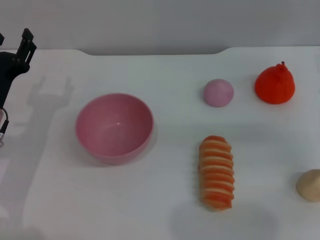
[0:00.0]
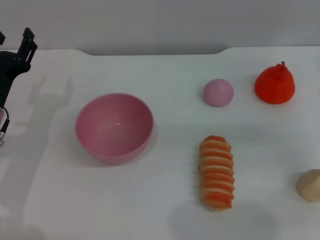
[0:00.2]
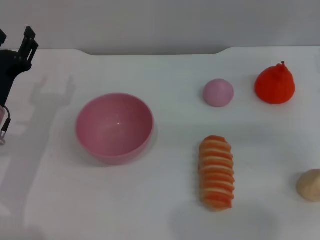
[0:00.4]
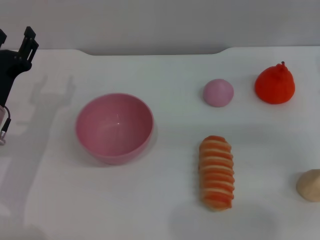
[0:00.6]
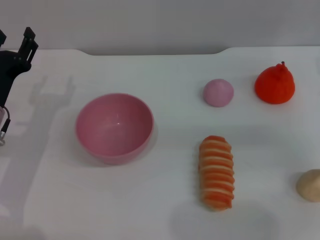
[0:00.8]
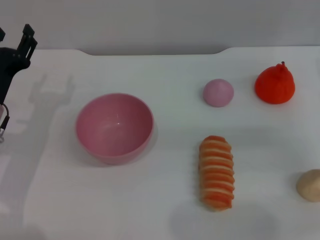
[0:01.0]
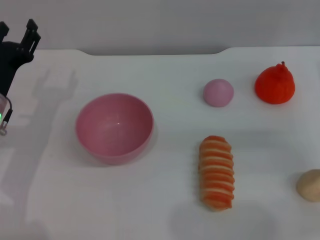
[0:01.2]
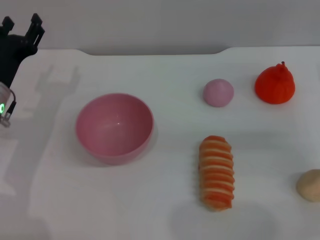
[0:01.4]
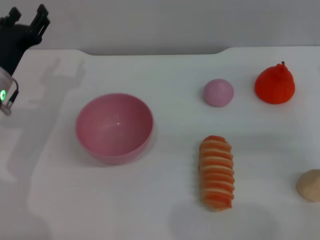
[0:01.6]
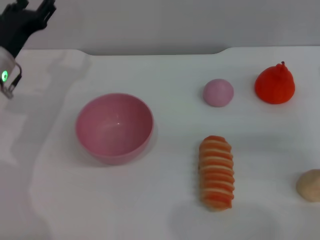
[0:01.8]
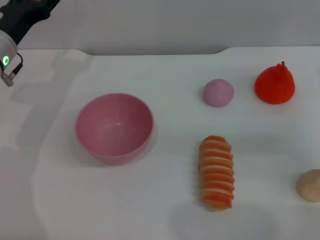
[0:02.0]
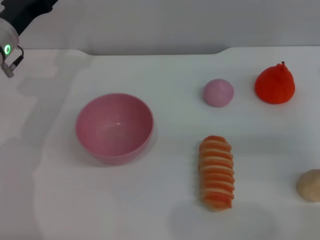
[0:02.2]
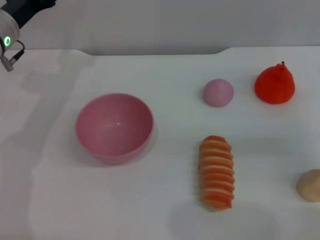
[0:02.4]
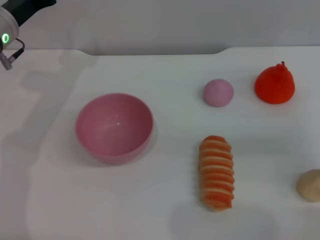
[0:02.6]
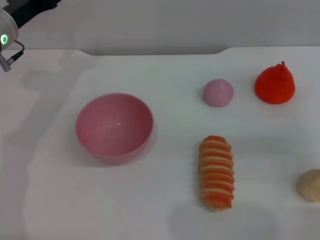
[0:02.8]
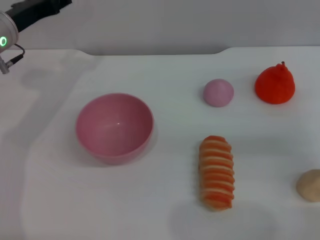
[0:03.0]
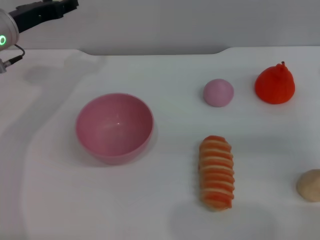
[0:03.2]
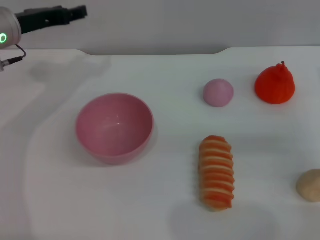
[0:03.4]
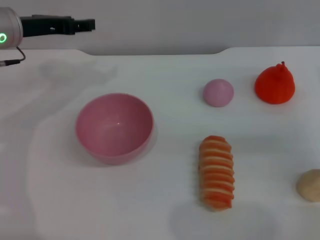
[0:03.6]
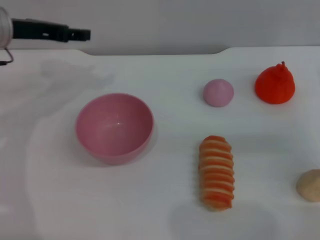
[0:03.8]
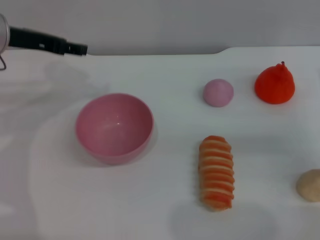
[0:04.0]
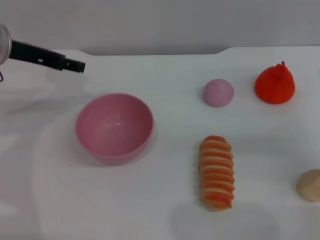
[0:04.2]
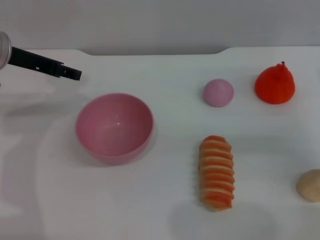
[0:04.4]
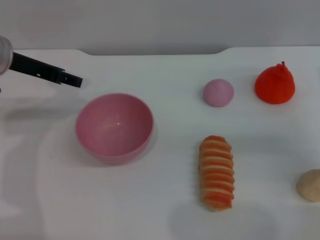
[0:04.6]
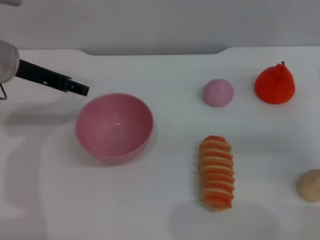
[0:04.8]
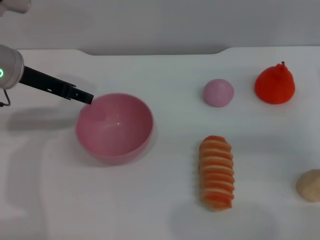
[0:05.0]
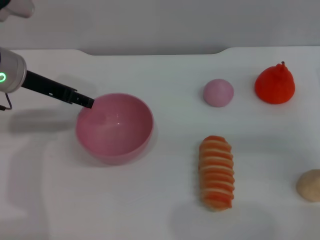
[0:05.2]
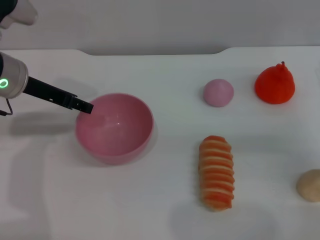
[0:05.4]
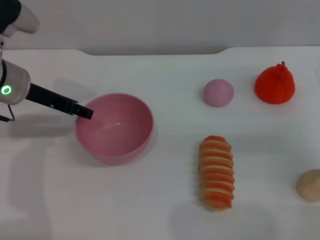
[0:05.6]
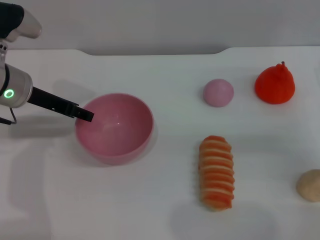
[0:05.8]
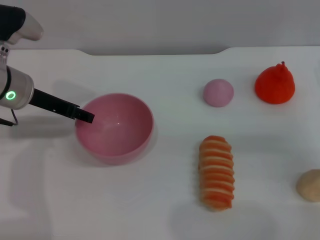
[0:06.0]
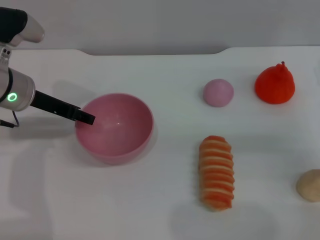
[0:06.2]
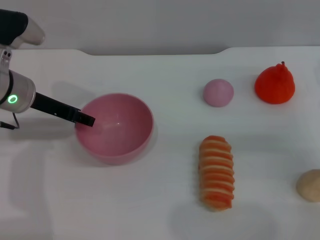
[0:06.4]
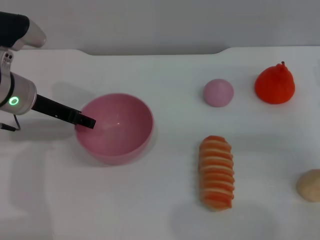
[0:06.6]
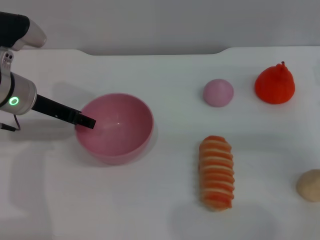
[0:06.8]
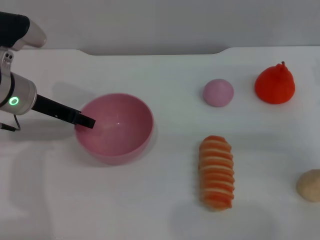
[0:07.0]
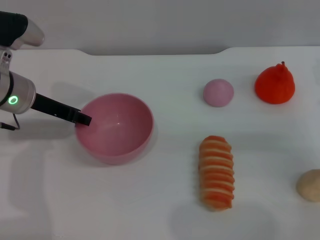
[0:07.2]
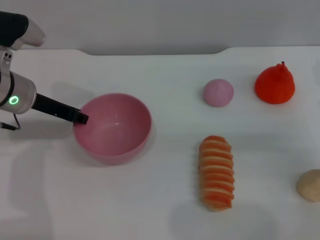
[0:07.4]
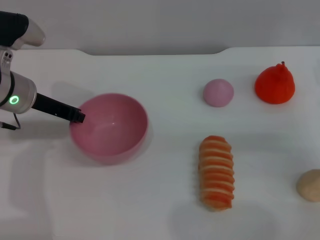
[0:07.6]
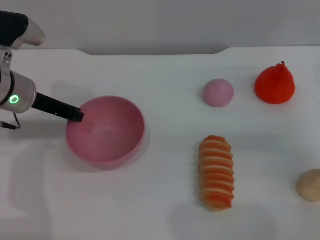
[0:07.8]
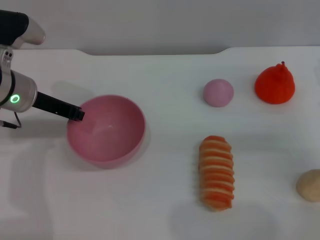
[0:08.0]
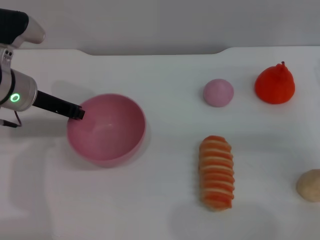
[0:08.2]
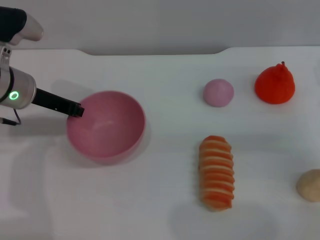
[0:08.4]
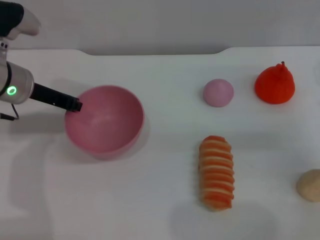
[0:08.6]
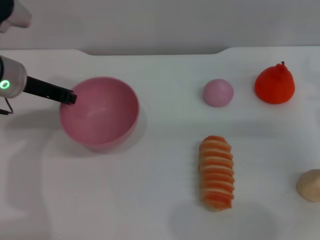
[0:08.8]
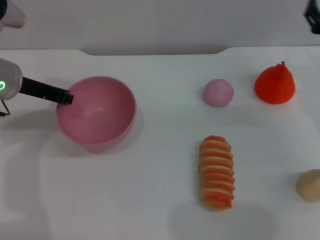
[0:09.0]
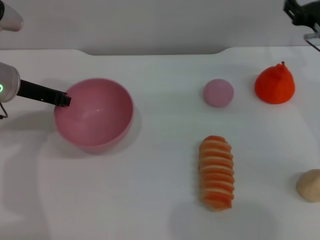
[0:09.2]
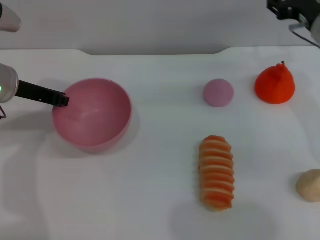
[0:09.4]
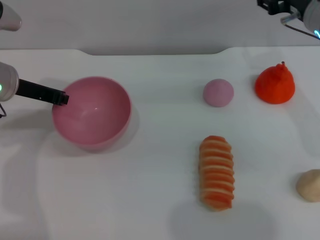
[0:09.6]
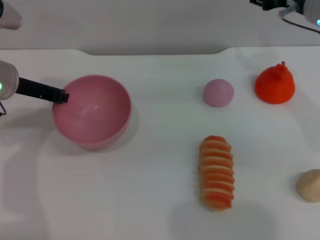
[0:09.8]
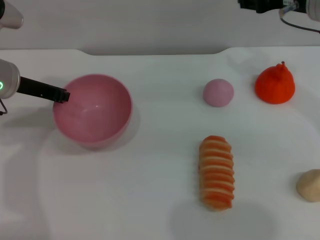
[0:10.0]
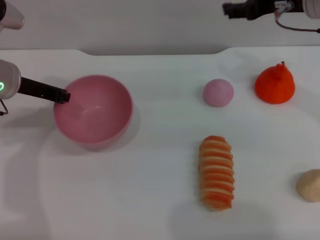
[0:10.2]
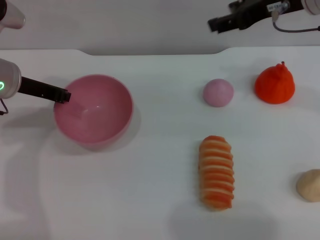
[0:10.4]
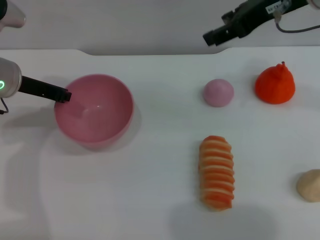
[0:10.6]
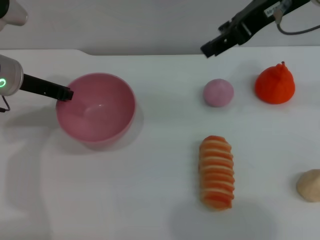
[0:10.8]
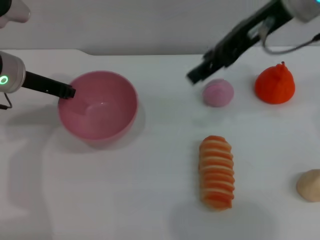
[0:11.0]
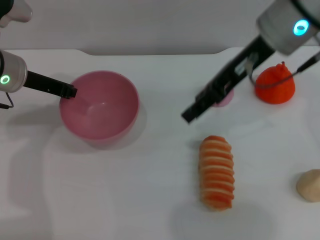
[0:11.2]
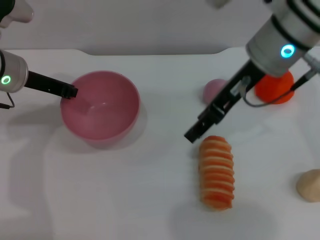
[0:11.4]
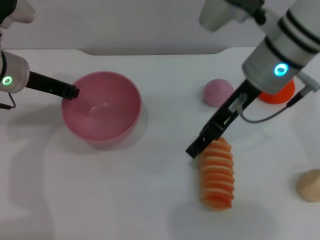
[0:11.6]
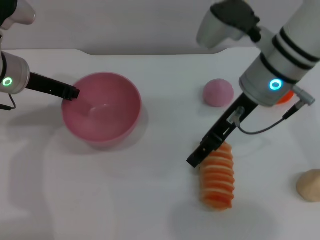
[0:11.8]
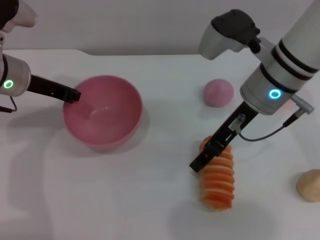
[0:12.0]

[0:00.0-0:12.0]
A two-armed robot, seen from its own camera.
Task of the whole recording: put the bread into the pink bowl and pour it out repeatedly.
Step, 0:00.0 to 0:08.8: Pick up the bowl with the left gripper.
0:00.0 to 0:01.6: The left gripper shifts about 5 cm forward.
0:01.6 to 0:03.0: The left gripper shifts roughly 10 cm upward and forward.
0:04.4 to 0:06.0: The left gripper ends up about 5 cm from where it was.
0:06.0 to 0:07.6: The left gripper closes up.
0:07.6 to 0:09.0: The left gripper closes. Meanwhile the right gripper shifts by roughly 5 cm.
0:09.0 to 0:10.4: The right gripper travels upward and to the left by some 20 cm.
0:10.4 to 0:12.0: The right gripper moves downward and to the left, about 10 cm.

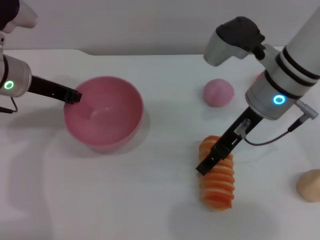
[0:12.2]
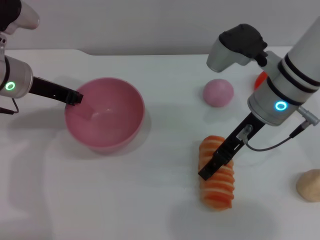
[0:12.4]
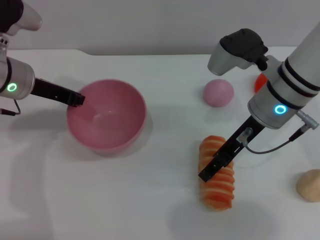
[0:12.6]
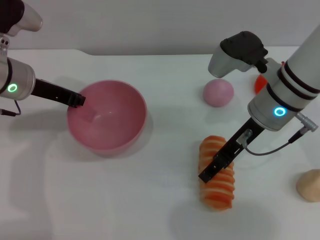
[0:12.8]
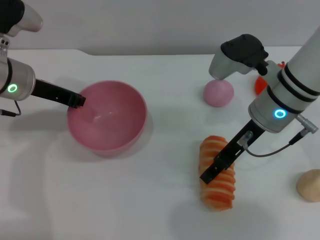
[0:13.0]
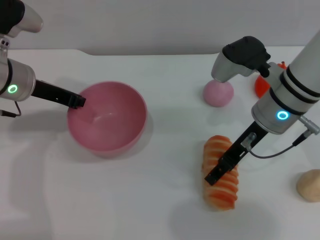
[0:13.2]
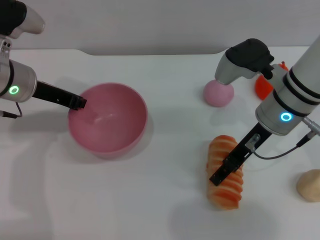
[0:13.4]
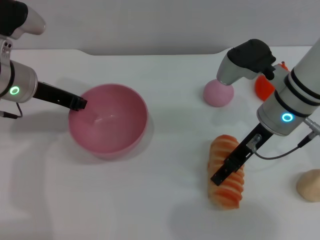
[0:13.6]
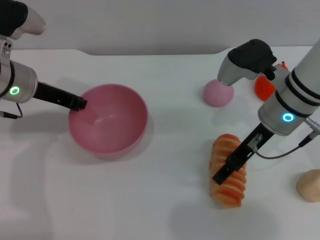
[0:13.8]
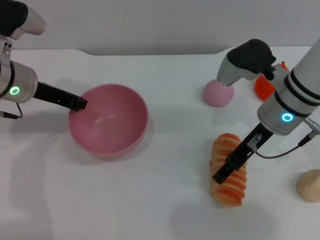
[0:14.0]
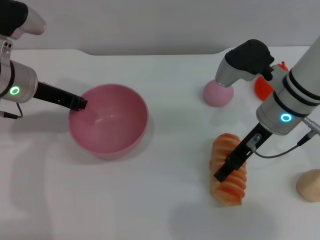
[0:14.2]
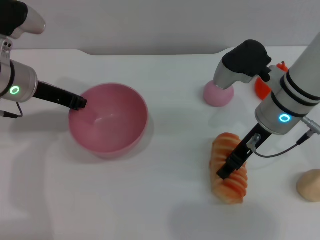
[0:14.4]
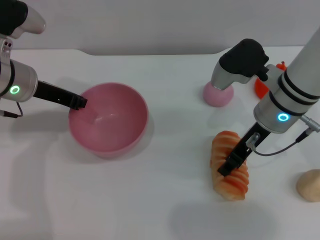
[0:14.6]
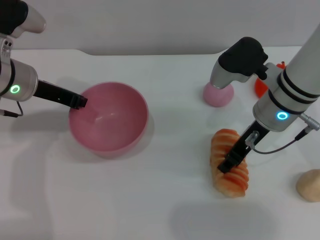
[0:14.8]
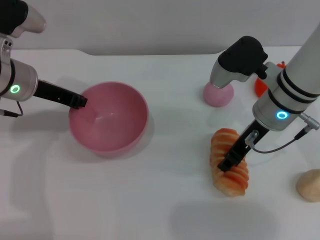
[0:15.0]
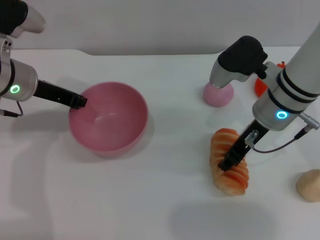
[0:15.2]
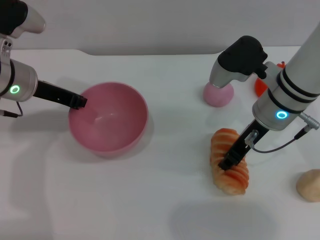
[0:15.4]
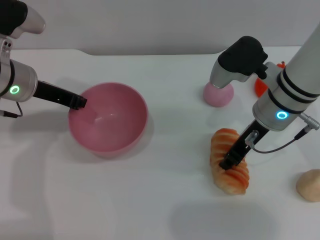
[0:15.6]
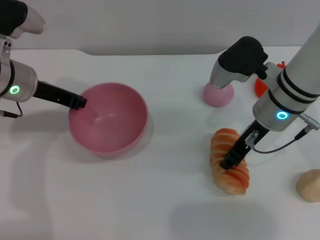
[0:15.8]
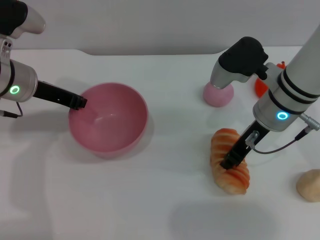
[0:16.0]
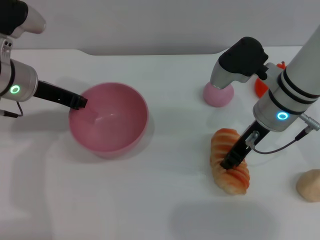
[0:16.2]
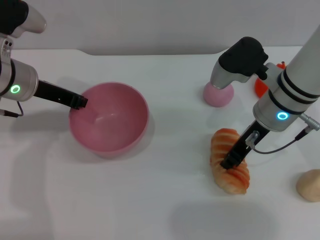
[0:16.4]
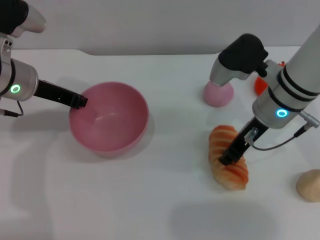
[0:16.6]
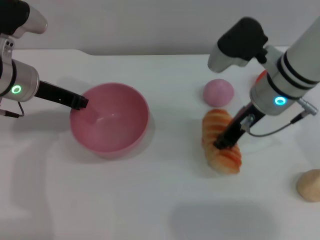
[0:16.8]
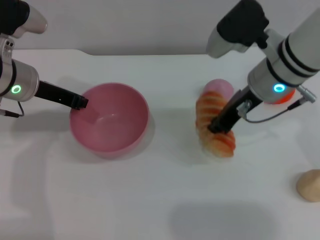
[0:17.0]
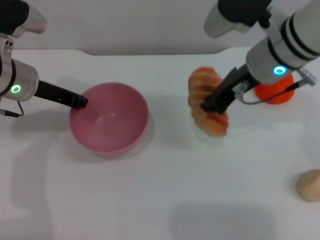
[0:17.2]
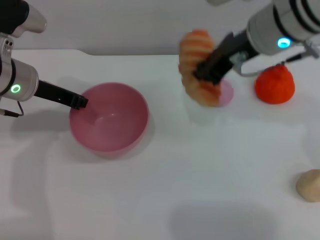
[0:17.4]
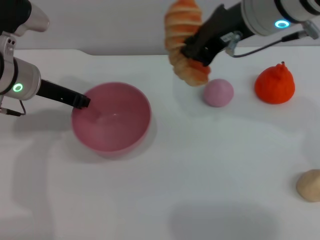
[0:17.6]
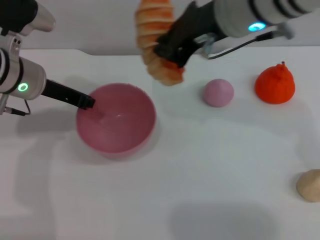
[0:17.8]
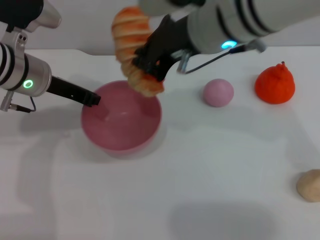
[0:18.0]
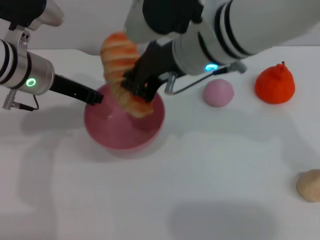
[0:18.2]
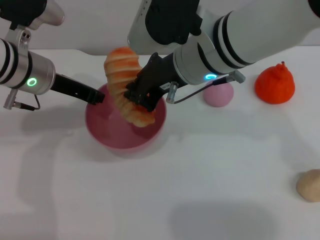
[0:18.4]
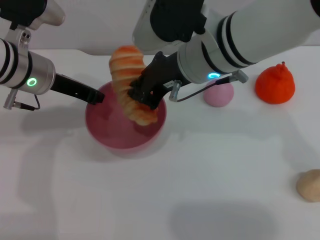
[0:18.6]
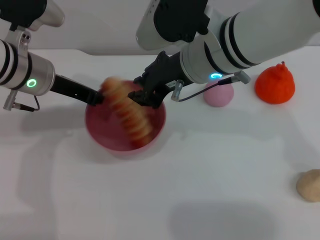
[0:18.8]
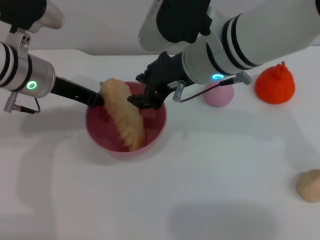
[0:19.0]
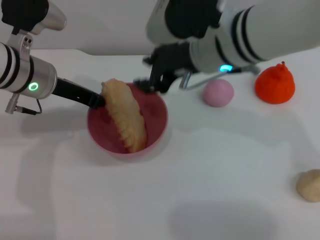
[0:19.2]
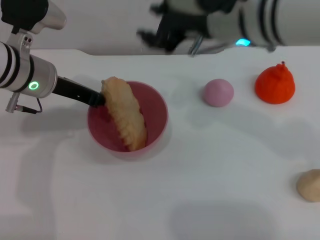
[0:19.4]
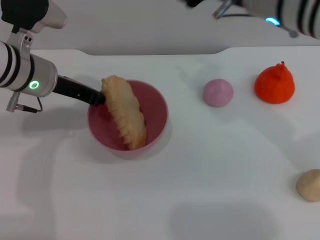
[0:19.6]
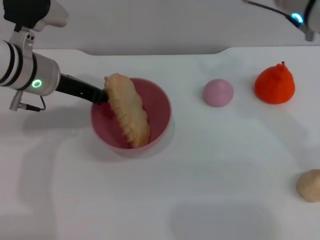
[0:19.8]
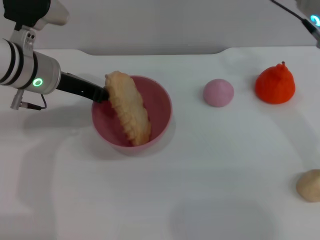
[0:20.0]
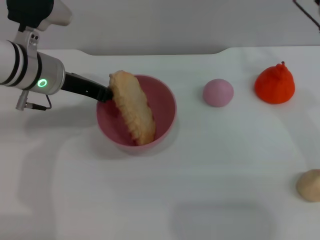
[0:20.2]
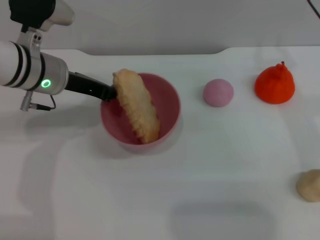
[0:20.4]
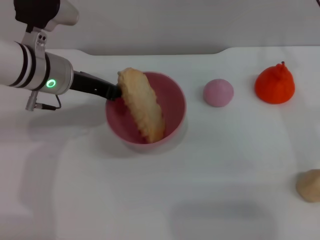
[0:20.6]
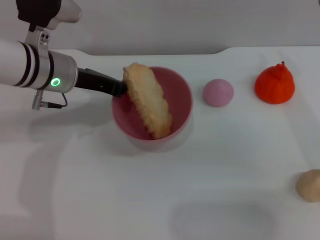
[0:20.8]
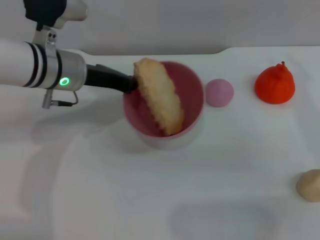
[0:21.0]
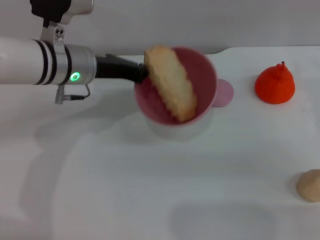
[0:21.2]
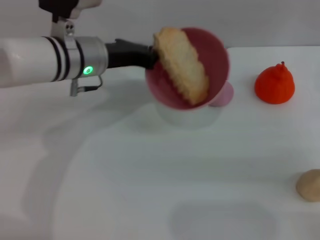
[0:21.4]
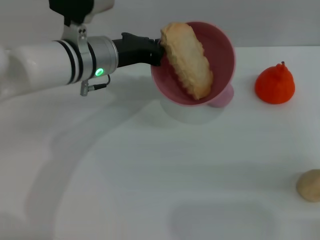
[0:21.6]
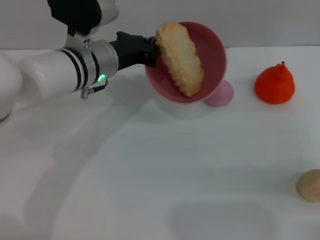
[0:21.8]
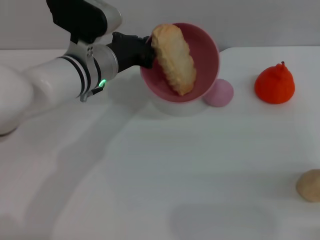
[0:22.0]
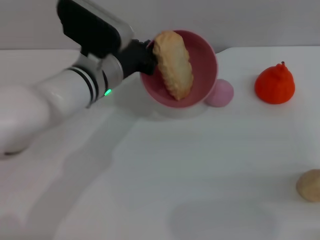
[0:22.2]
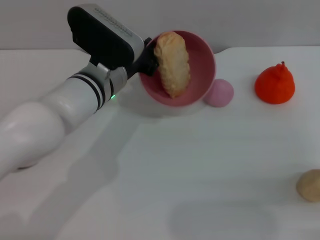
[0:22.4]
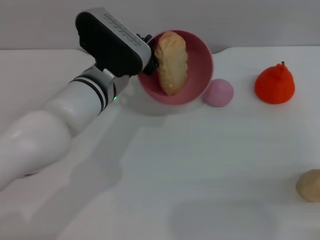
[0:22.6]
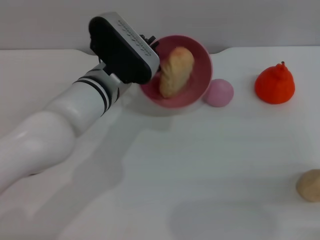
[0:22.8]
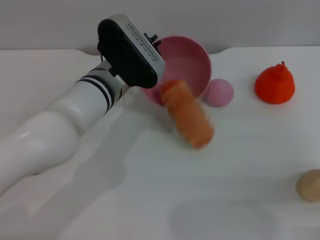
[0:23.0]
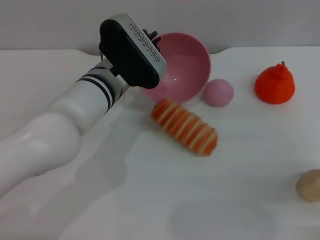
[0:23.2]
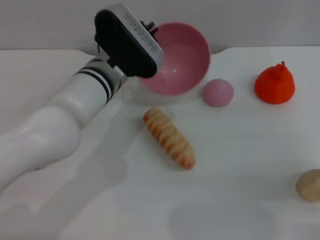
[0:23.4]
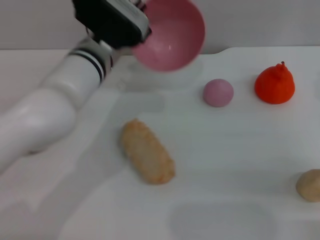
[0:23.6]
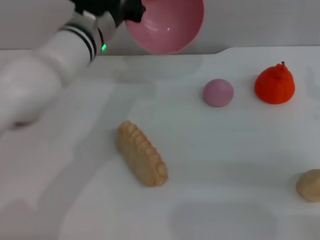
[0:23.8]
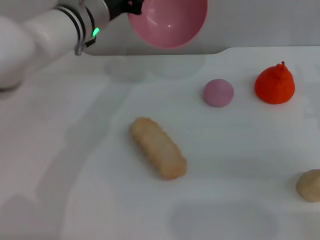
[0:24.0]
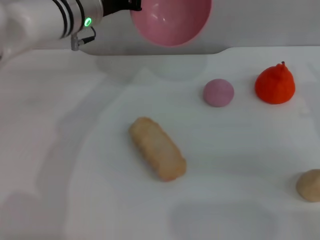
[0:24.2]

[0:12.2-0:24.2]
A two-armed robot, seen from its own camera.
Task of the whole recording: put the bread into the pink bowl and pour it out repeatedly.
Step, 0:12.2 to 0:16.8: Pick up the bread with the right gripper.
Step, 0:17.2 to 0:19.0: Place the bread into the bowl.
Step, 0:19.2 to 0:23.4: Pour the bread out of the bowl.
0:12.2 to 0:13.8: The grippers stay close to where they were, moving slightly.
0:13.8 to 0:15.2: The right gripper closes its fingers.
0:15.2 to 0:16.6: Both grippers stay put.
0:16.6 to 0:18.2: The right gripper is displaced to the left and upward by approximately 15 cm.
0:18.2 to 0:19.8: The right gripper heads to the right, covering some 10 cm, and opens up.
0:19.8 to 0:21.2: The right gripper is displaced to the right and downward by roughly 15 cm.
0:21.2 to 0:22.6: The grippers both shift to the right by approximately 5 cm.
0:22.6 to 0:24.2: The right gripper shifts by roughly 5 cm. The left gripper moves forward and upward, some 10 cm.
